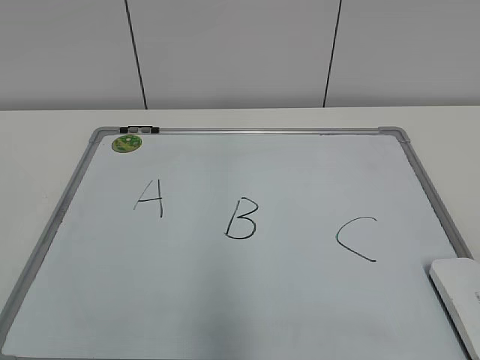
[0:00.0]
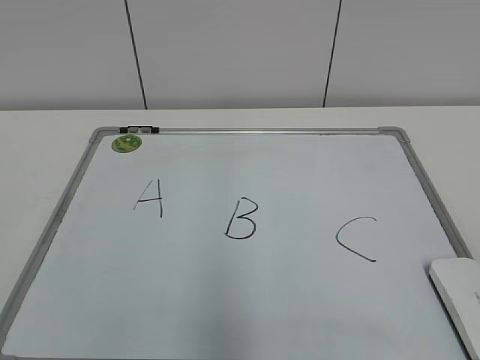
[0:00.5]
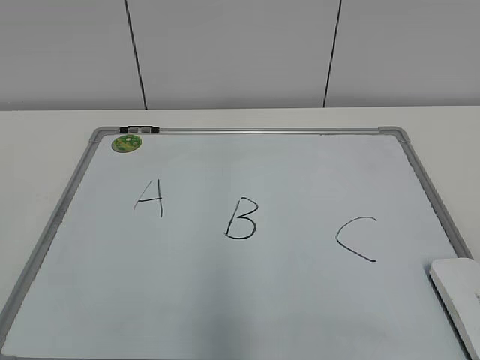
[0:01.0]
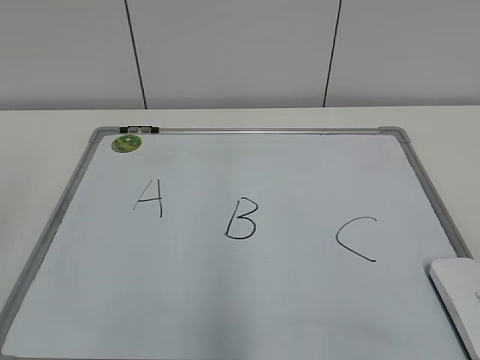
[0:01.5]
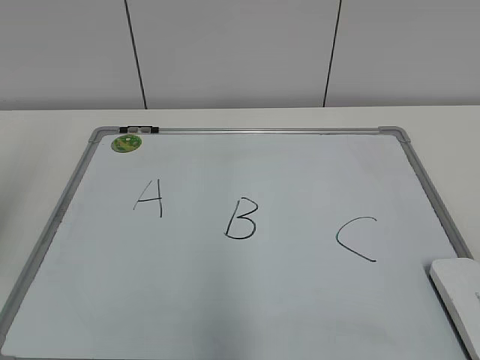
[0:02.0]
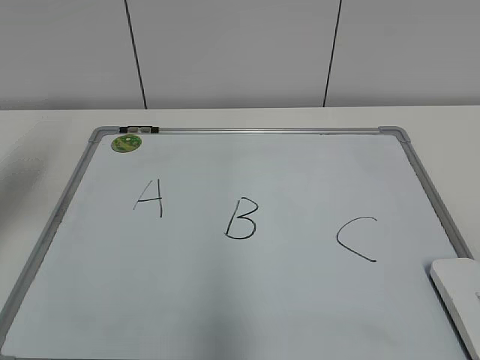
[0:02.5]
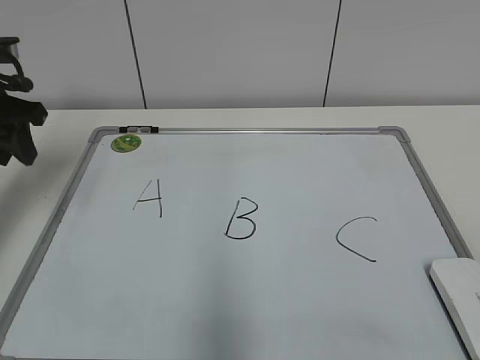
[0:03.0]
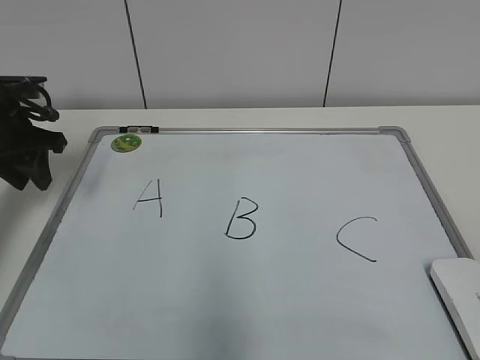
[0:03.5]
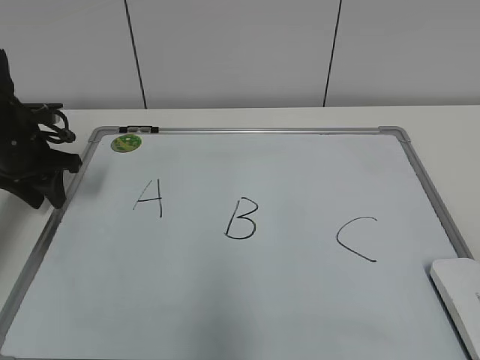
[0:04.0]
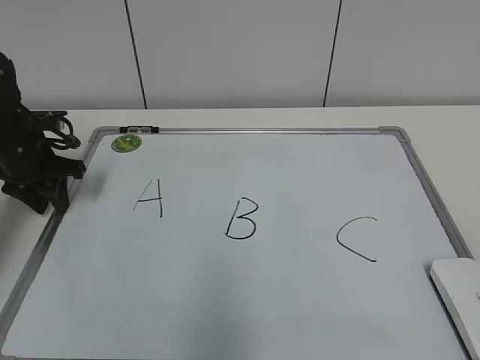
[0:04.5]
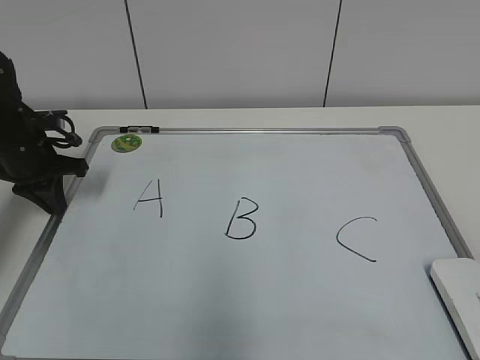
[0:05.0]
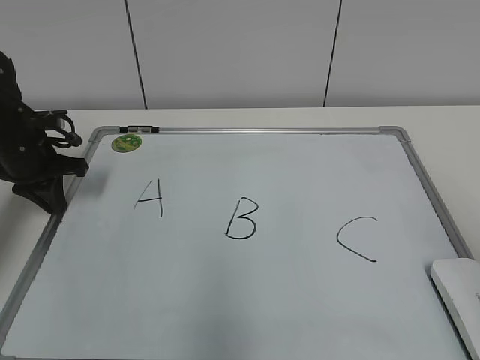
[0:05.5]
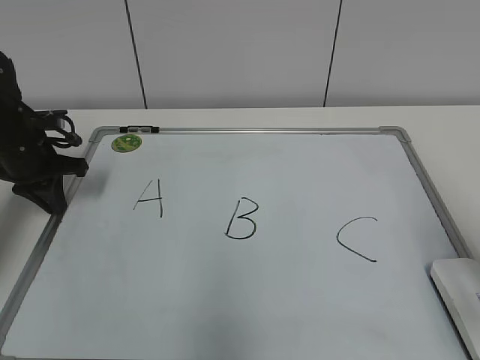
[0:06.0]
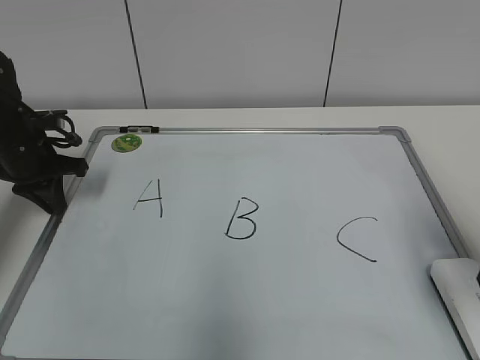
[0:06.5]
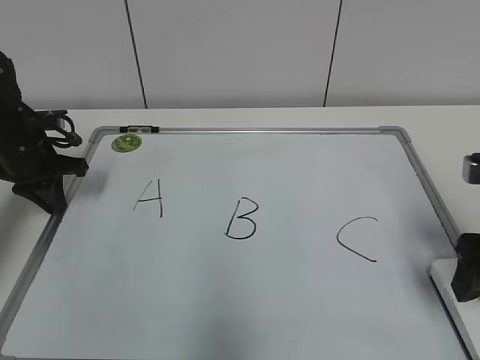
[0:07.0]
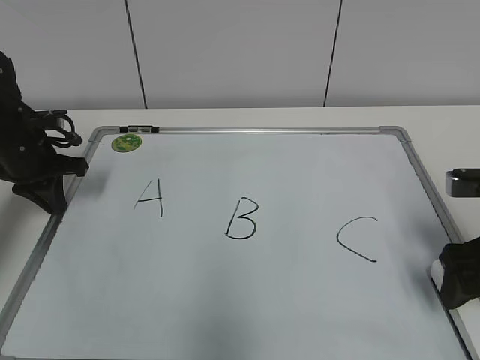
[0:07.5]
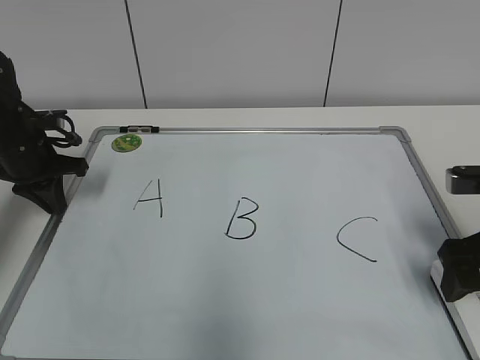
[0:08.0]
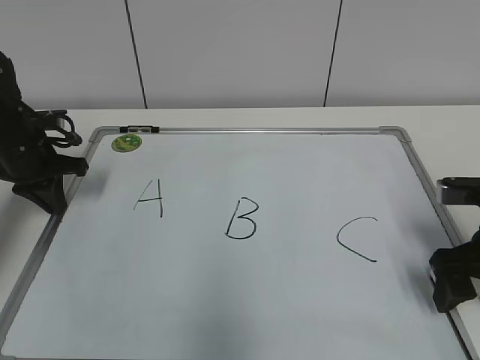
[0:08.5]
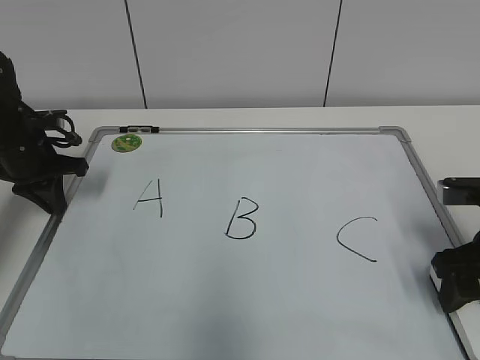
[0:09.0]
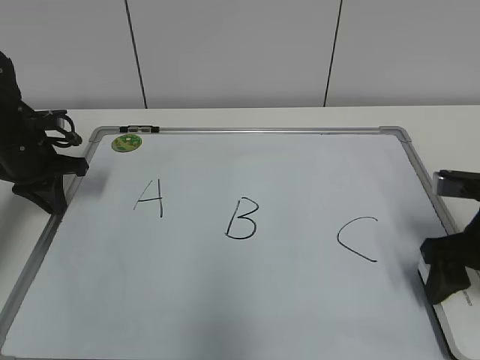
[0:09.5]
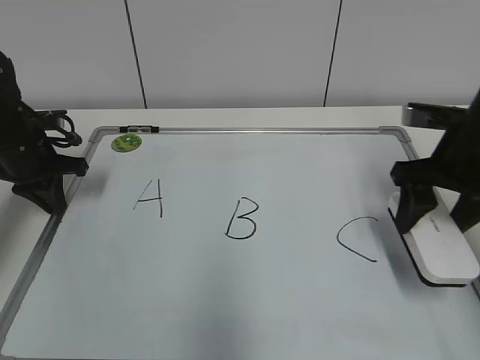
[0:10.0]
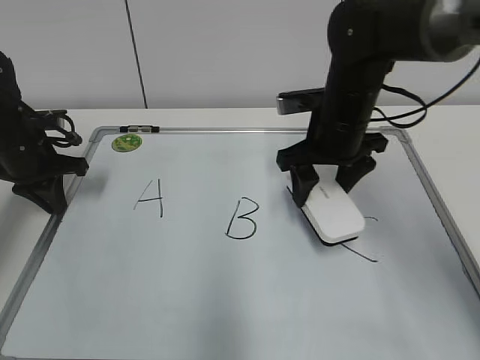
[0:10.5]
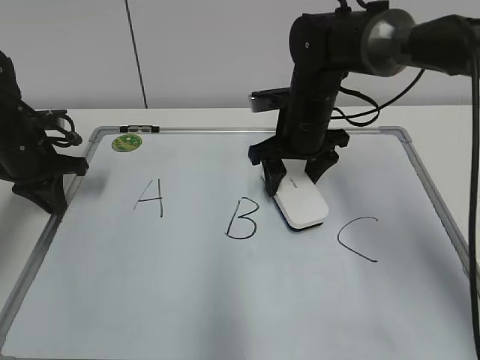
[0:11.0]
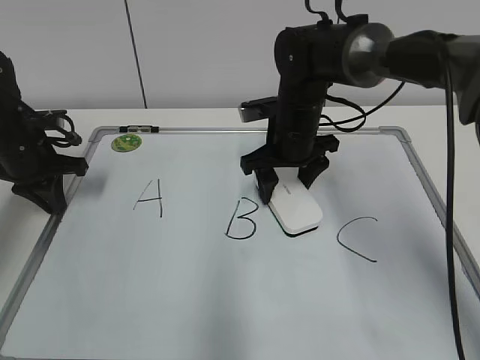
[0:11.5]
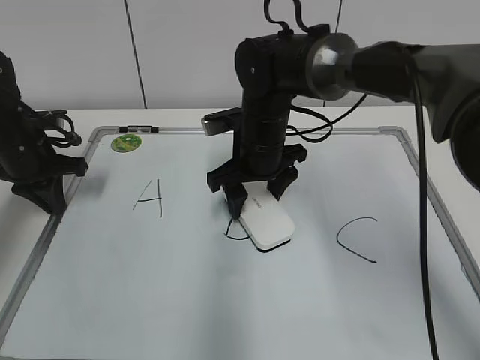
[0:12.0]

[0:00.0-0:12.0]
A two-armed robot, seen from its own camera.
Task of the whole recording: pick up the eraser on the blackboard and erase the letter "B".
Step, 0:00.0 to 0:06.0: Hold the drawing board steady with your left hand.
Step, 0:06.5 to 0:09.0: Grab the eraser with your right hand.
0:02.0 to 0:04.0: The left gripper is displaced forward and downward by some 25 cm.
0:04.0 to 0:06.0: The left gripper closes. The right gripper travels forward by approximately 15 cm.
0:06.0 to 0:08.0: The right gripper heads forward and downward, covering roughly 15 cm, and opens its fingers.
0:08.0 to 0:10.0: The right gripper travels forward by some 5 cm, and closes its fingers.
0:10.0 to 0:12.0: The right gripper travels to the left by roughly 20 cm.

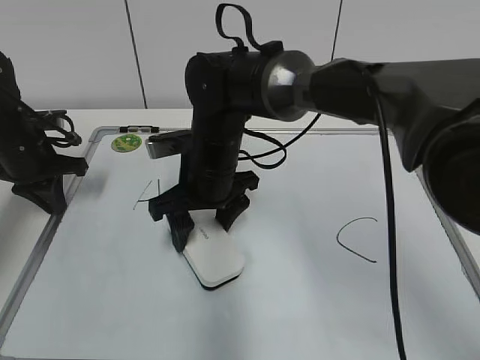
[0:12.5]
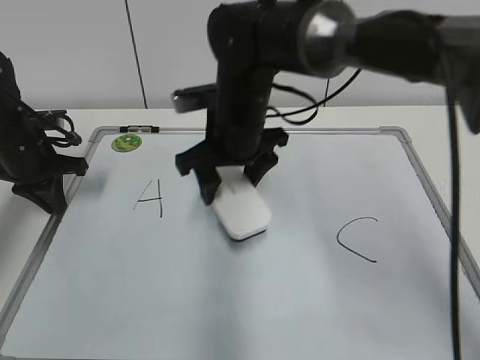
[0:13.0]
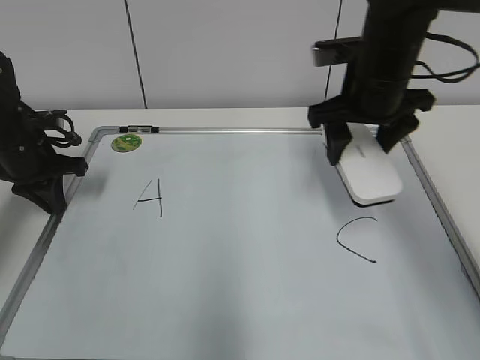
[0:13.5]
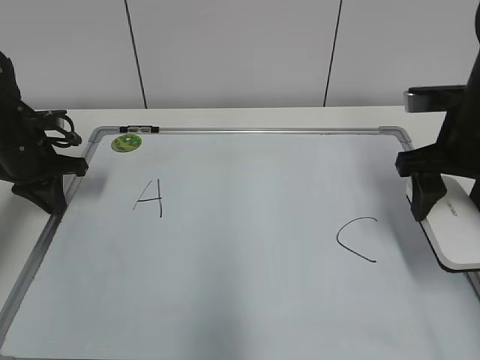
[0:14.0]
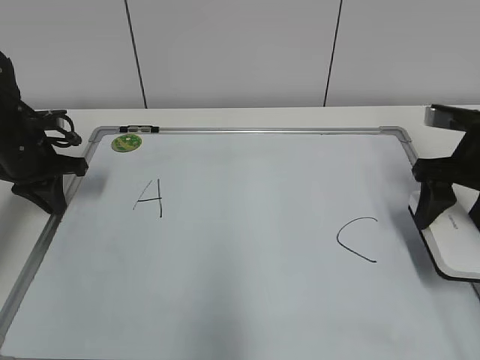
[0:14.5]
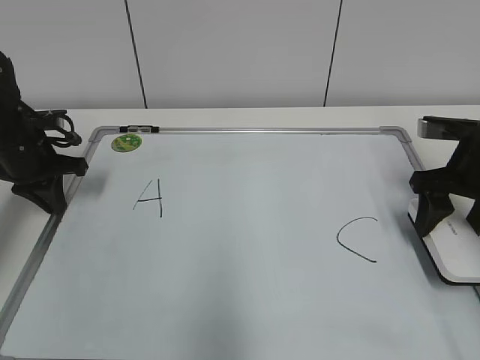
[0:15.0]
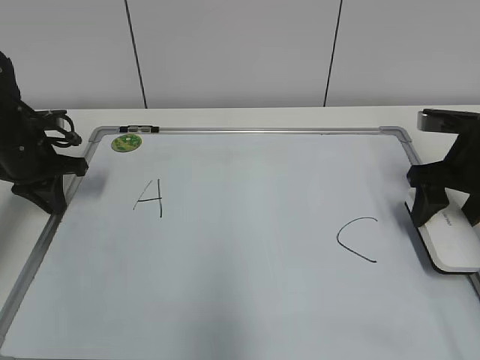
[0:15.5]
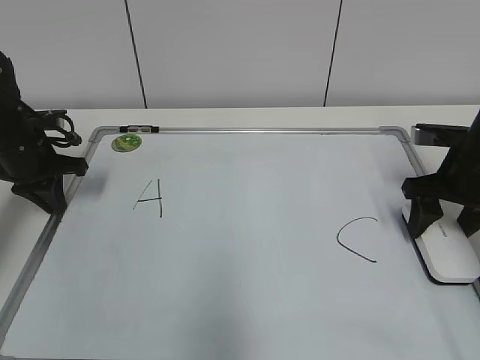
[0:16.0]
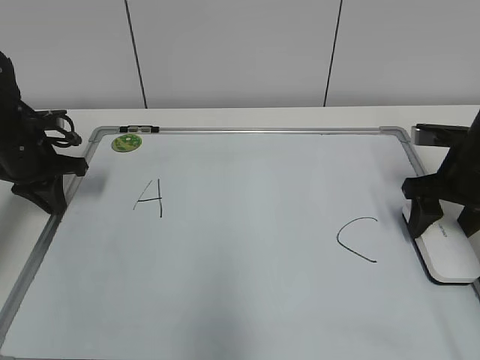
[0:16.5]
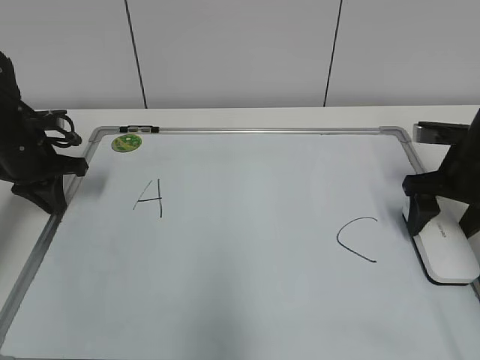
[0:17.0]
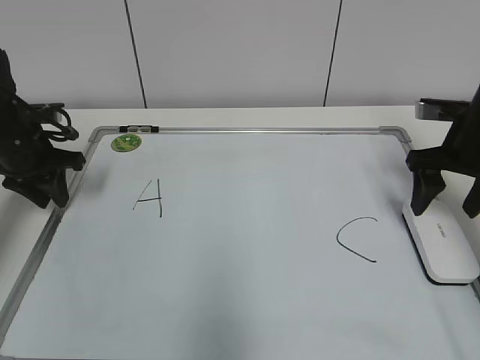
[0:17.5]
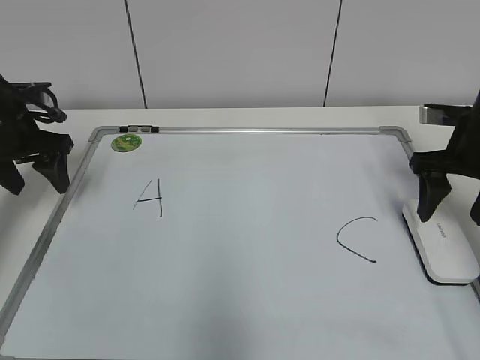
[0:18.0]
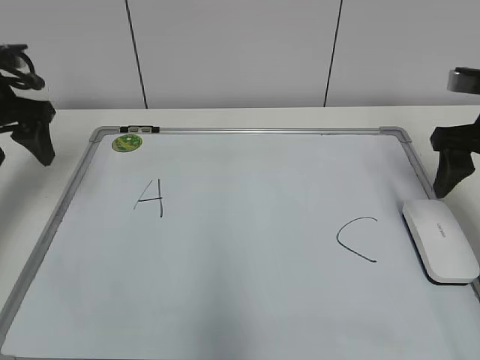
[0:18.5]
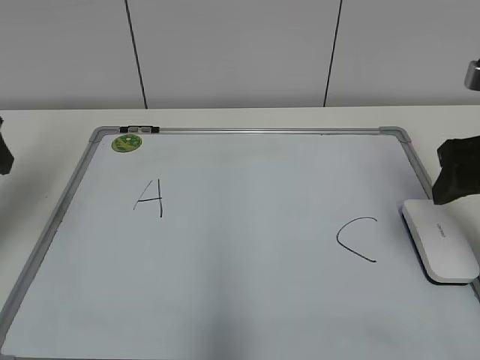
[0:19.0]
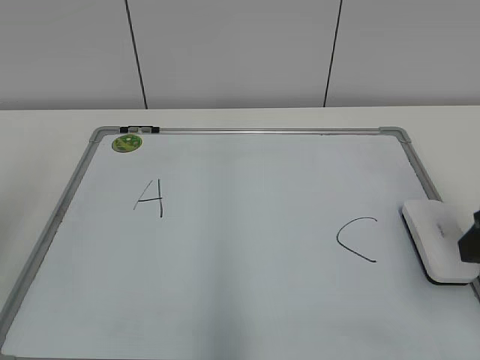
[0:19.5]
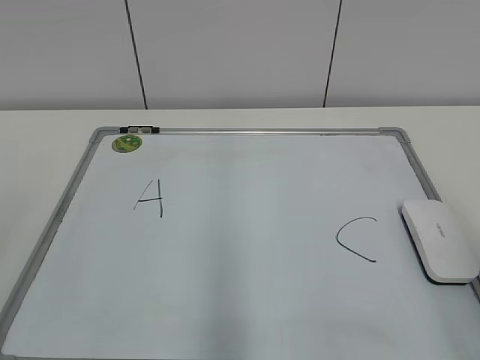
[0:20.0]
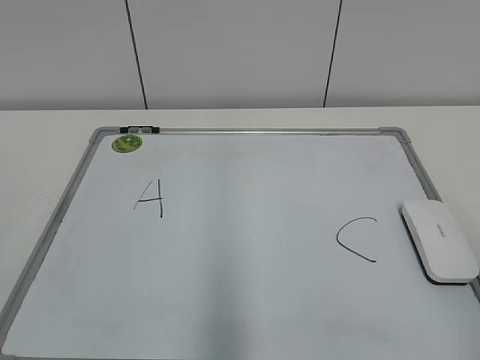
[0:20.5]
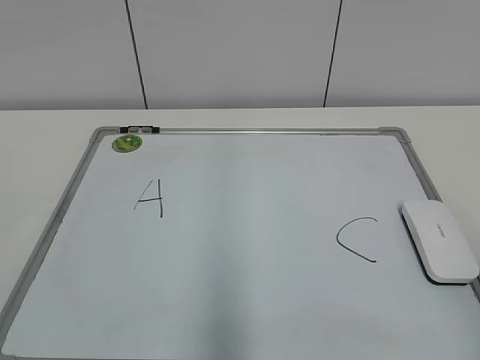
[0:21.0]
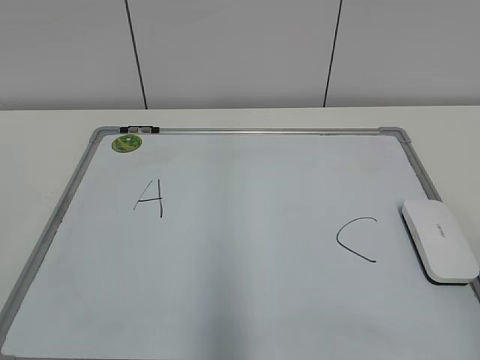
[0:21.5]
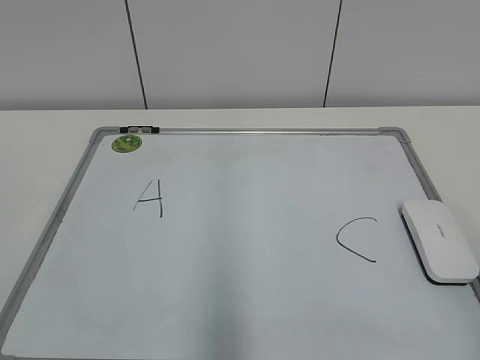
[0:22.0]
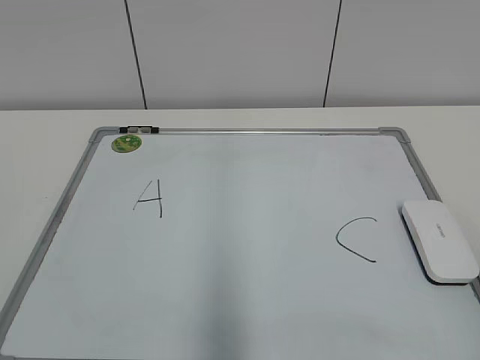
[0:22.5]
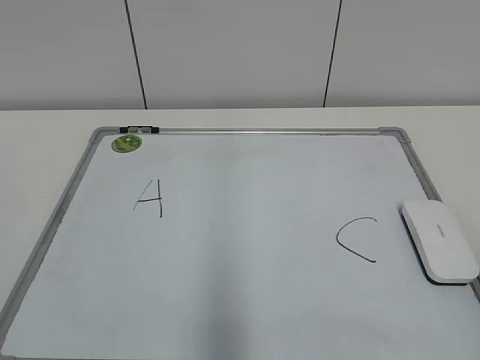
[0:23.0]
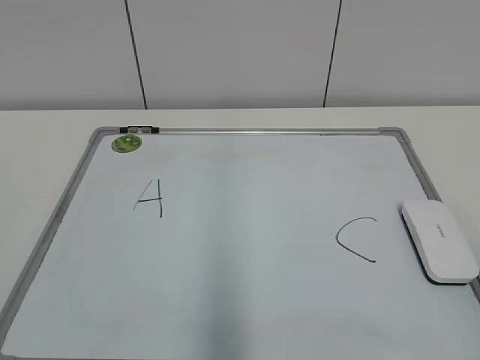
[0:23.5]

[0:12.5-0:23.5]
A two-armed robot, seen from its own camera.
Task of the whole recording: pick up the eraser on the blackboard and erase the letter "B".
Step, 0:13.0 to 0:15.5: Put down the eraser with your right hand.
0:12.5 to 0:14.5: The right gripper is displaced to the right by some 30 cm.
0:14.5 to 0:16.0: The grippers stay close to where they were, moving slightly.
0:16.0 to 0:18.0: The left gripper moves approximately 5 cm, and opens up; the right gripper opens.
0:18.0 to 0:20.0: The grippers both shift backward by some 30 cm.

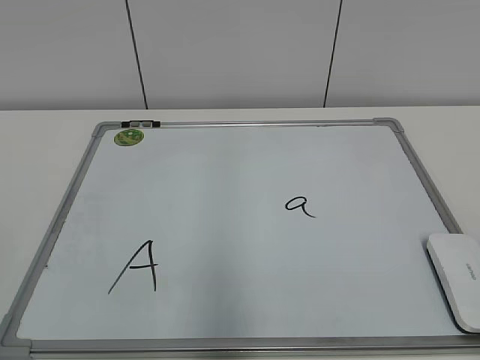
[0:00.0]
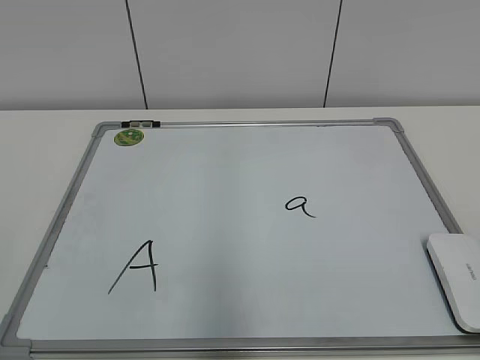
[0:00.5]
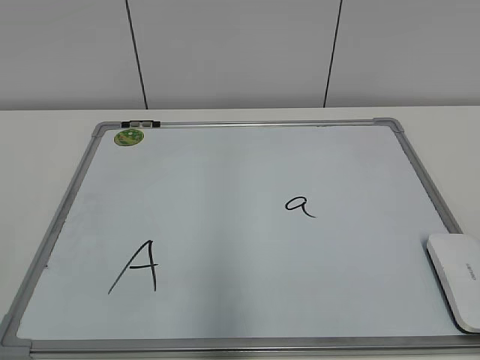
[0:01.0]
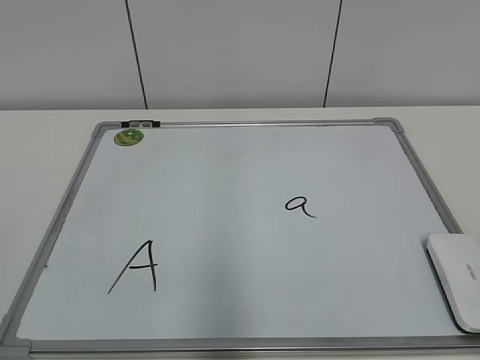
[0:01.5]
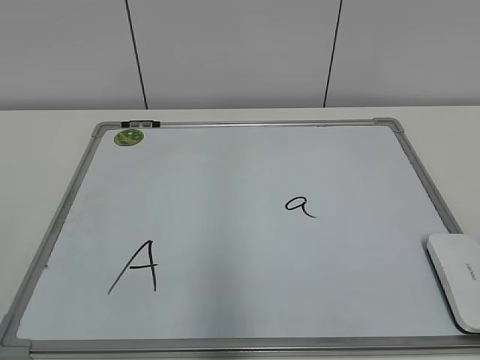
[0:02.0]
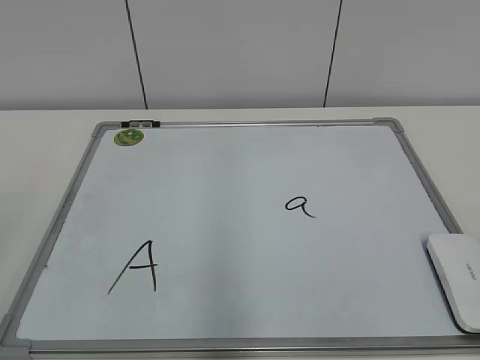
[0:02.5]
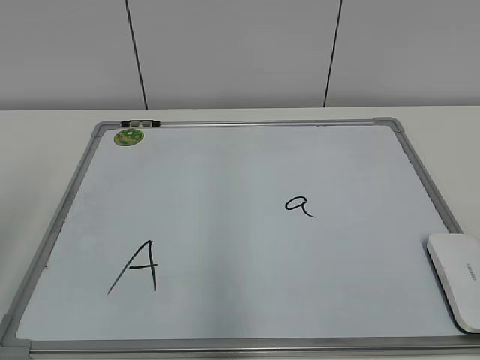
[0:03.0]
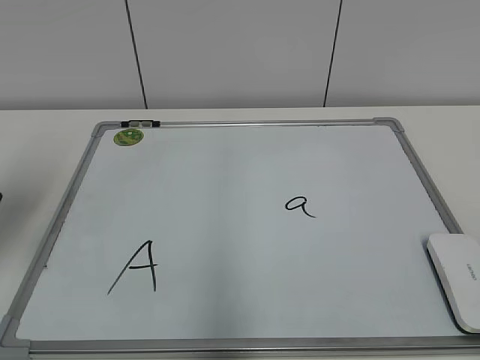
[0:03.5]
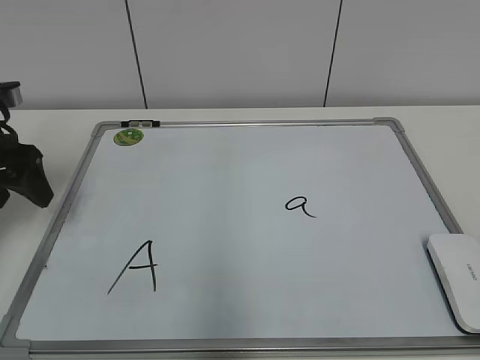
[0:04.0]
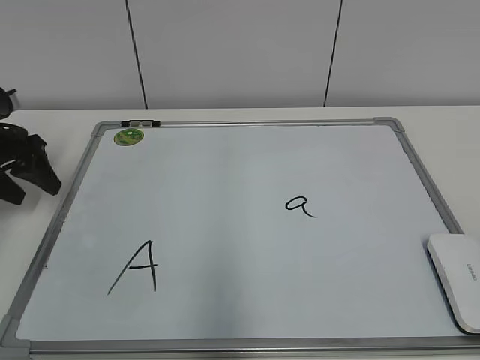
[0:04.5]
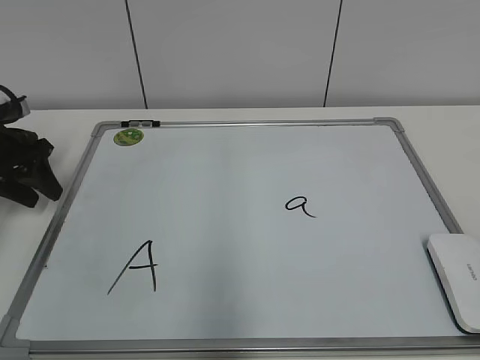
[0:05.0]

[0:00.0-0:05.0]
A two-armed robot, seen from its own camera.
Task of the whole recording: pick up the eraser on the blackboard and erase the letter "a".
0:02.5 to 0:05.0: The left gripper shifts some 40 cm forward and downward, and closes up.
